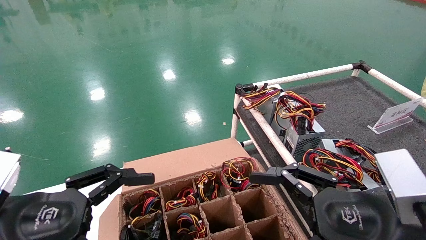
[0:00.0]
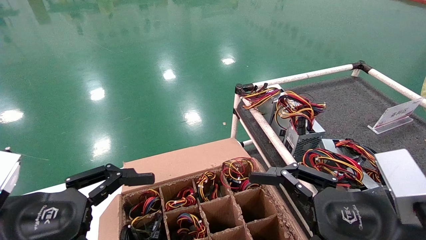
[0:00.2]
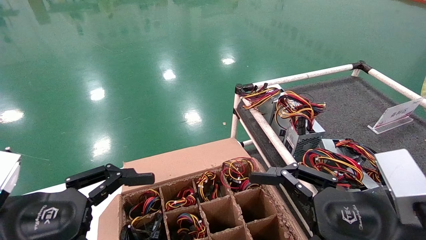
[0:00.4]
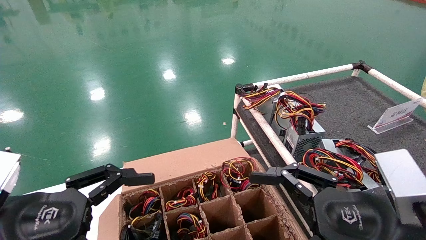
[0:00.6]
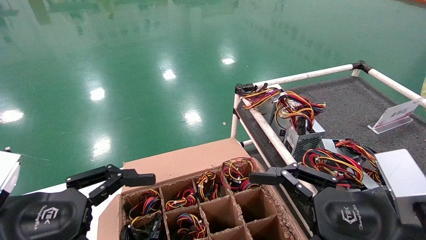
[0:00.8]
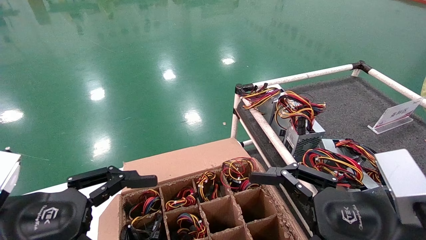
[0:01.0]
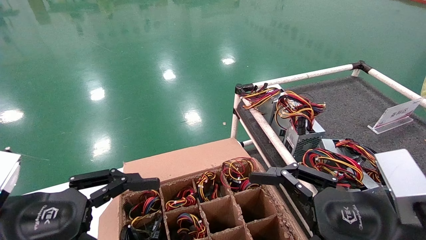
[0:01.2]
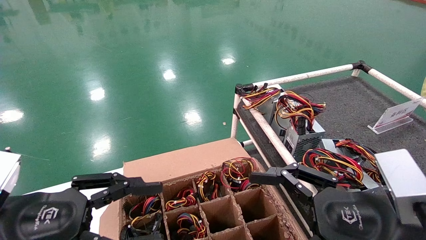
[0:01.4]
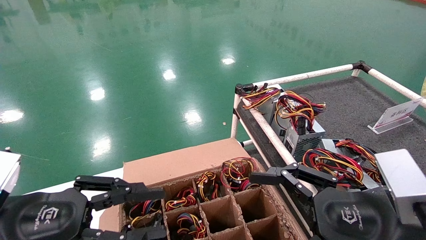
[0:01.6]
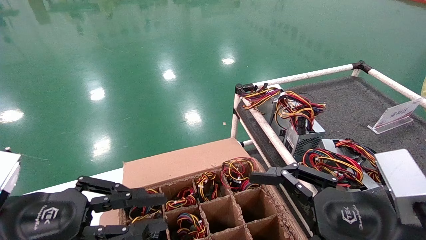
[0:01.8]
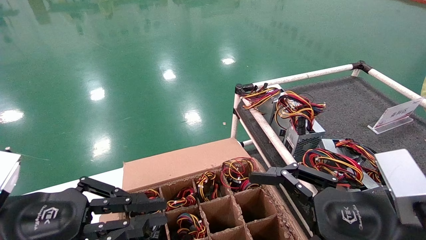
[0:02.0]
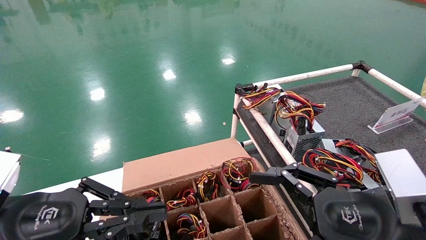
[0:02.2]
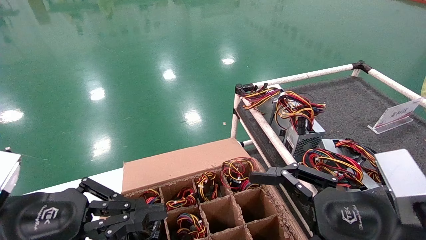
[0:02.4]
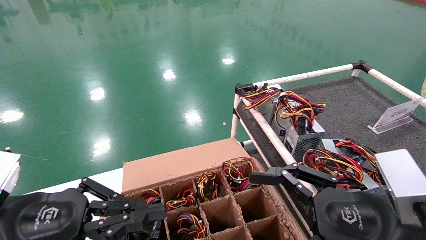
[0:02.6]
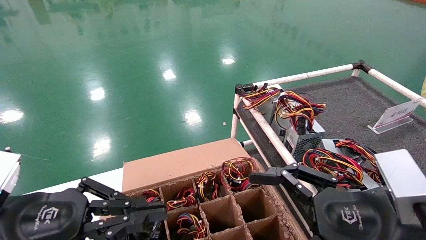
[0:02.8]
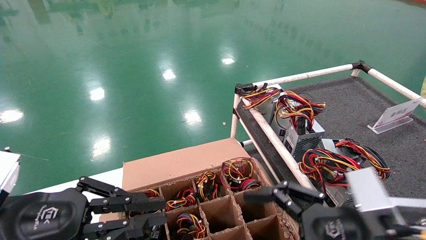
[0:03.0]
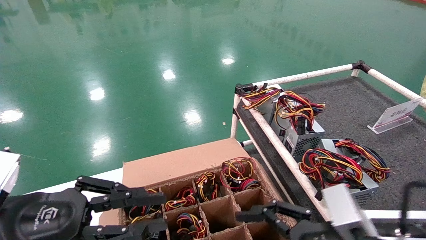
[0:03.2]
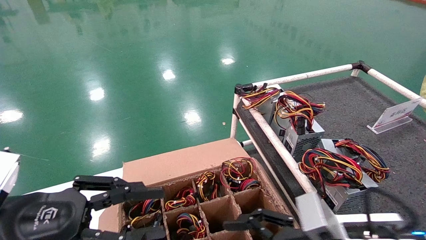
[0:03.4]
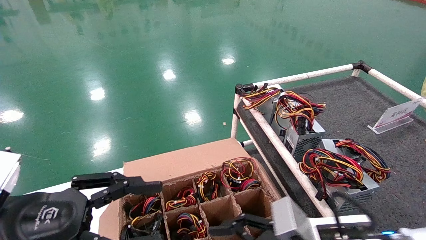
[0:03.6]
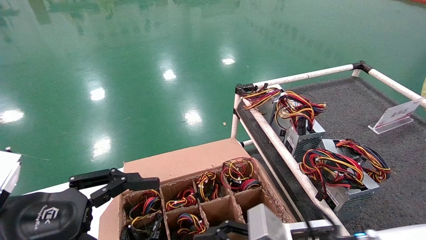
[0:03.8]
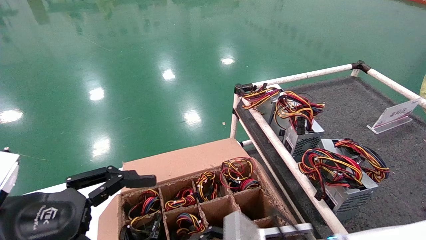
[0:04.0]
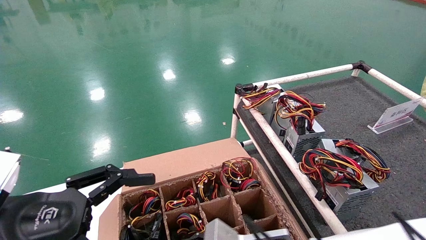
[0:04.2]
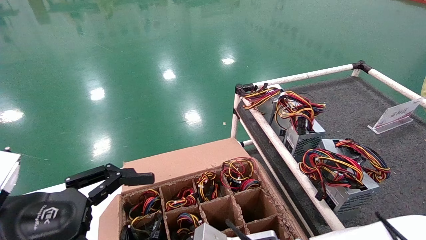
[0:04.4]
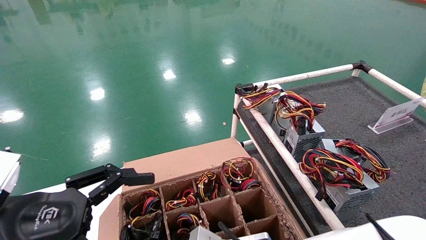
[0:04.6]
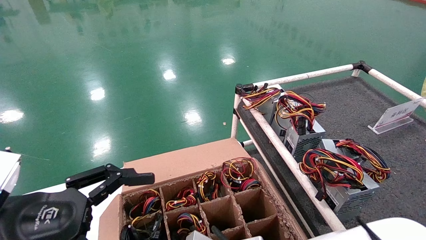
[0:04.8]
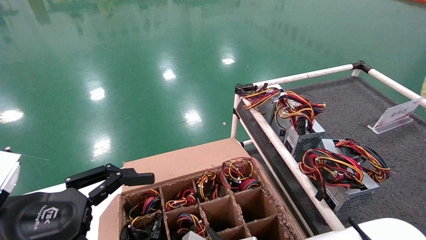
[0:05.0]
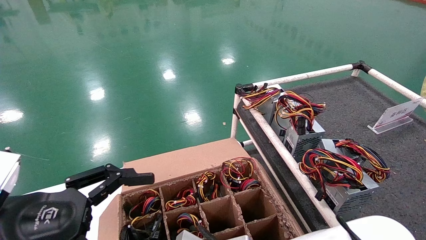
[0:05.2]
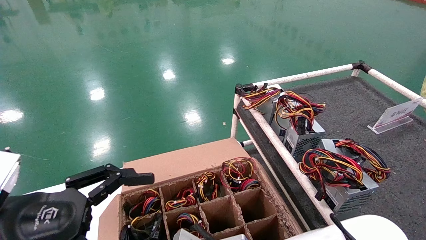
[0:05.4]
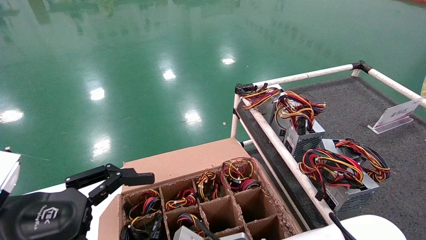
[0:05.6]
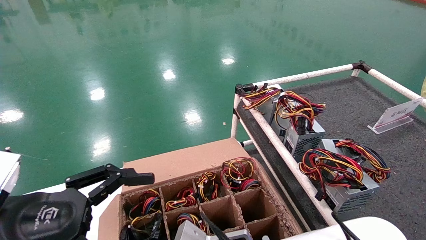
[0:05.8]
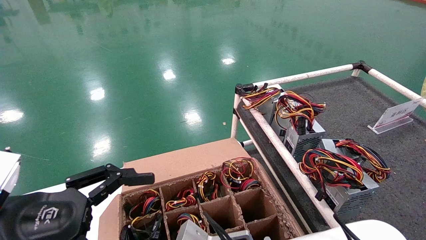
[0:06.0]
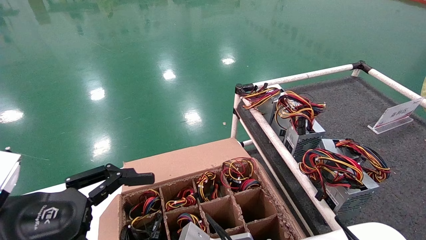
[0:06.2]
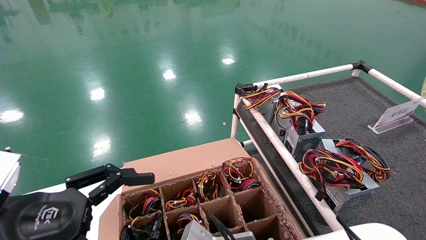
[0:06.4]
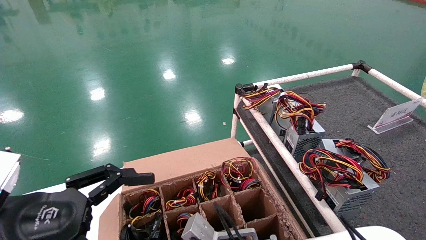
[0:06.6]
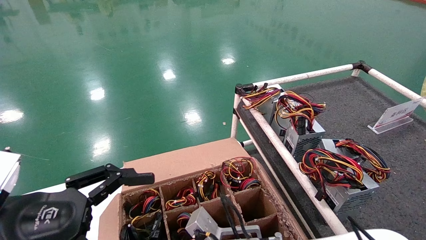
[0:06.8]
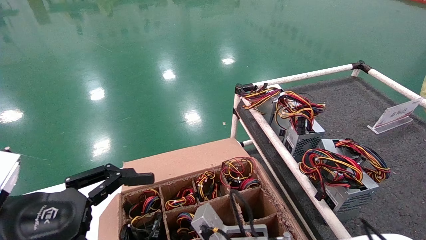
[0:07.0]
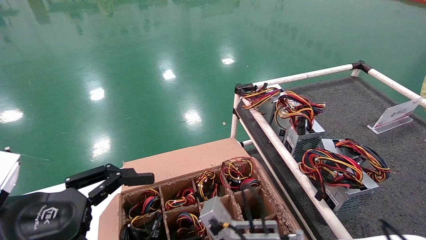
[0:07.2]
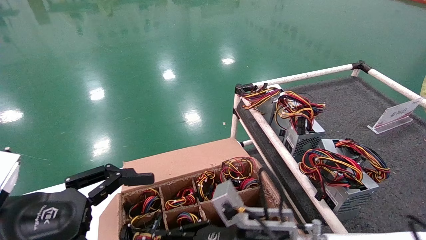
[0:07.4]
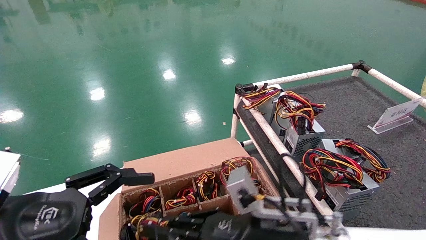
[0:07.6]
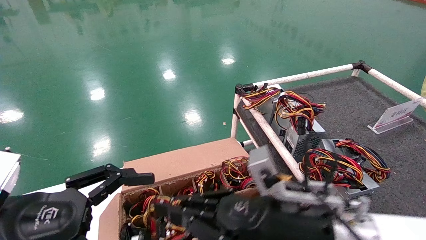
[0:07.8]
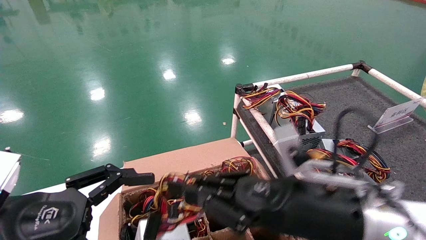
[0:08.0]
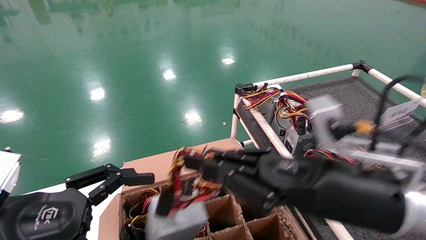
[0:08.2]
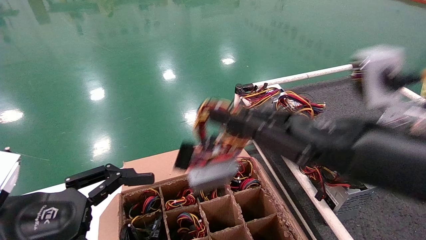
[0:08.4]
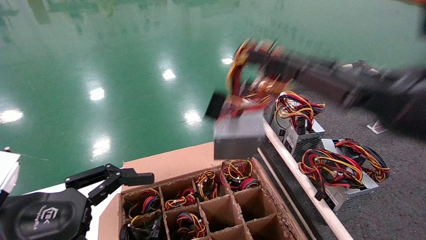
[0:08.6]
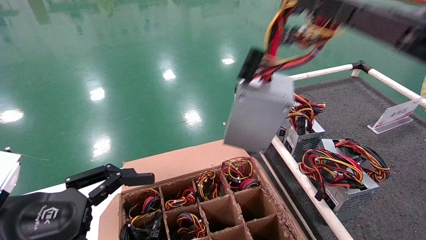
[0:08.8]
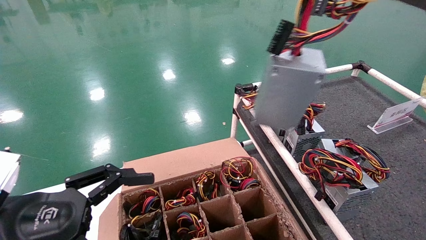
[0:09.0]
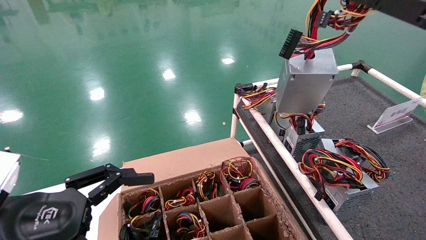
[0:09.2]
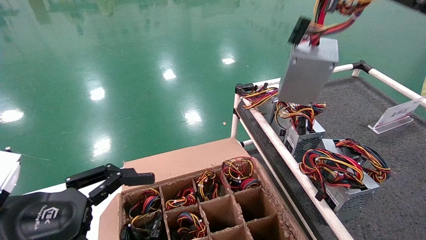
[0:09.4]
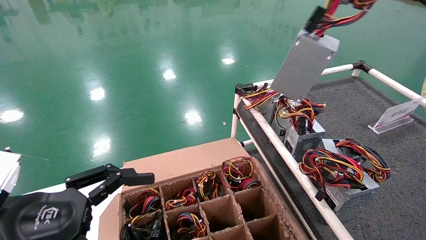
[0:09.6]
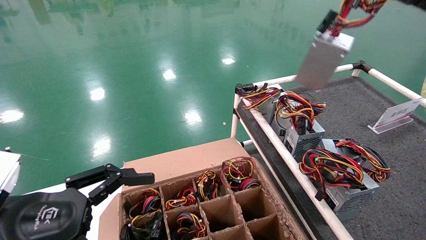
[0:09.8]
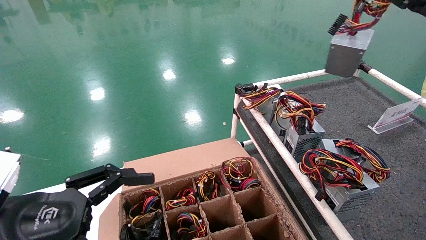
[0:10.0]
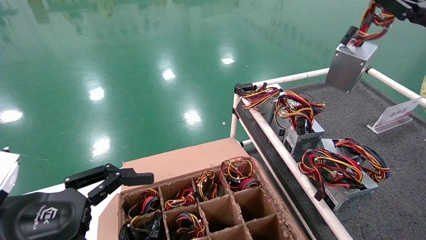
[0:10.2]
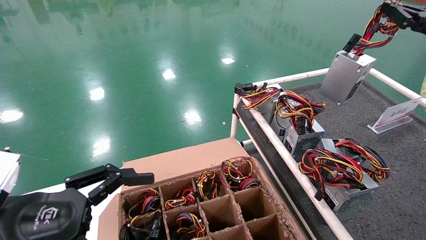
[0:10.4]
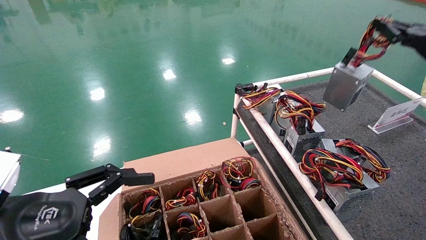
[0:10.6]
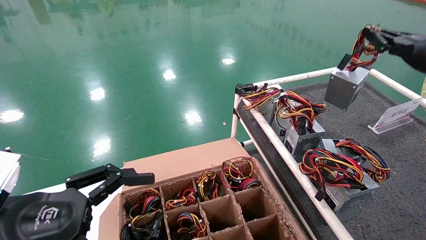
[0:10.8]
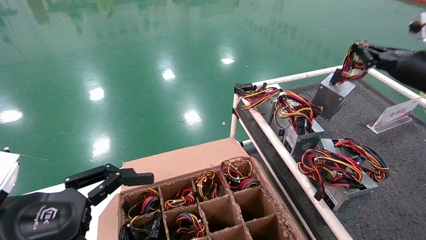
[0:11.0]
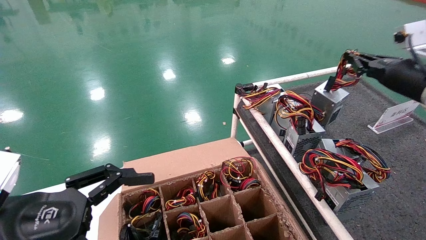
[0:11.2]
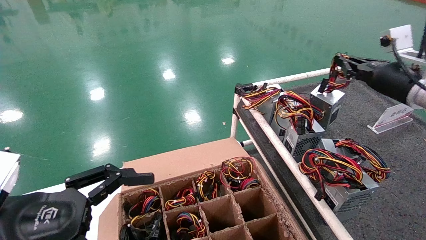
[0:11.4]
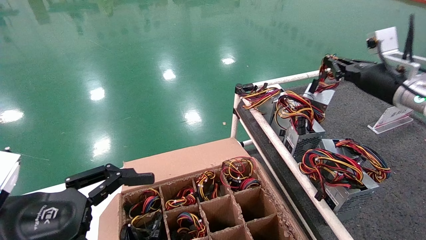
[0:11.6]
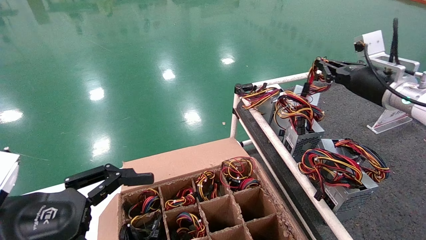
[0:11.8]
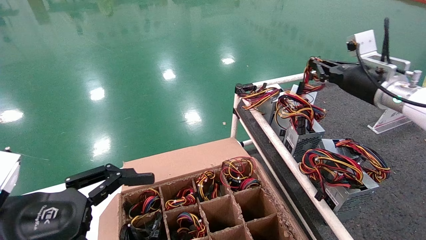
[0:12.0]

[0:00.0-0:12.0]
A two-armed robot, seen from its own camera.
Step, 0:00.8 to 0:06.2: Grab and lift the power supply from the large box.
0:00.0 to 0:01.6: The left gripper closes up.
0:01.6 to 0:03.0: The left gripper closes.
0:03.0 to 0:04.4: The left gripper opens. Meanwhile the right gripper moves to the left, downward and forward, about 20 cm.
0:04.4 to 0:06.0: The right gripper changes place by approximately 5 cm, and closes its fingers.
0:06.0 to 0:07.6: The right gripper is displaced upward and to the right by about 10 cm, and closes its fingers.
0:07.6 to 0:09.0: The right gripper heads upward and to the right, covering about 30 cm.
0:09.0 to 0:10.4: The right gripper shifts about 20 cm forward and to the right.
0:10.4 to 0:12.0: The right gripper goes approximately 15 cm to the left, forward and downward.

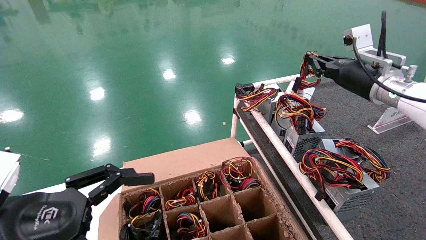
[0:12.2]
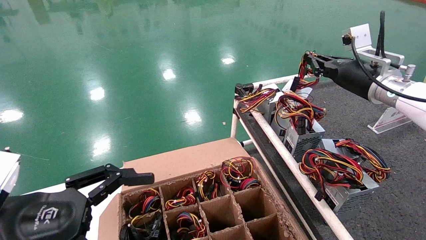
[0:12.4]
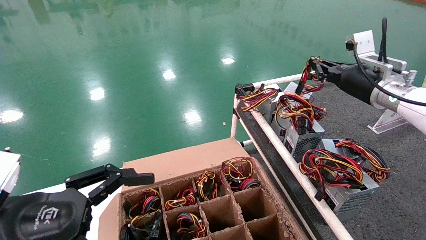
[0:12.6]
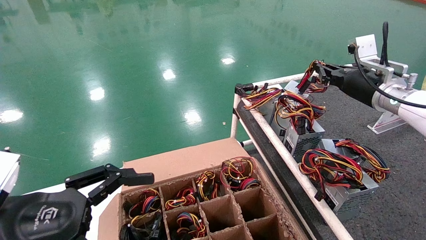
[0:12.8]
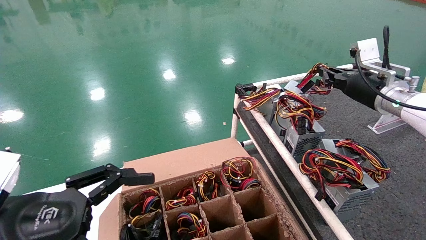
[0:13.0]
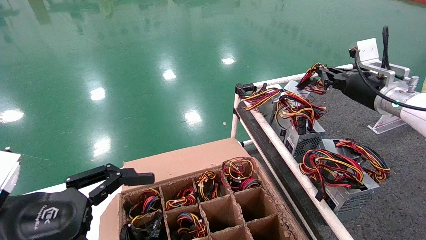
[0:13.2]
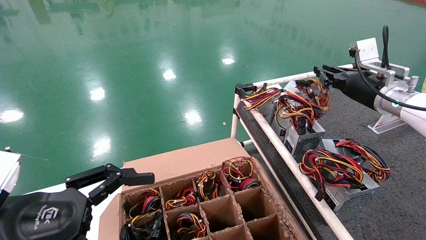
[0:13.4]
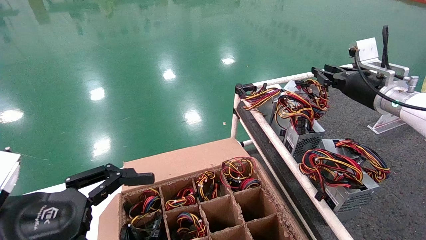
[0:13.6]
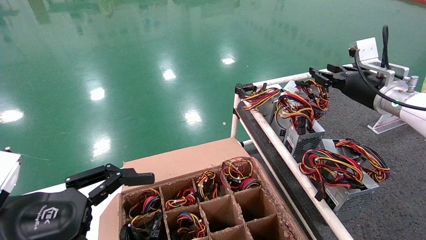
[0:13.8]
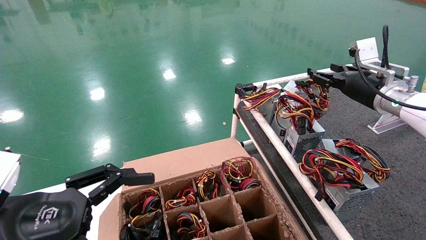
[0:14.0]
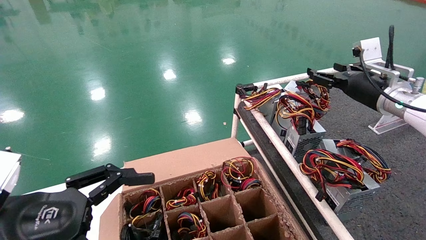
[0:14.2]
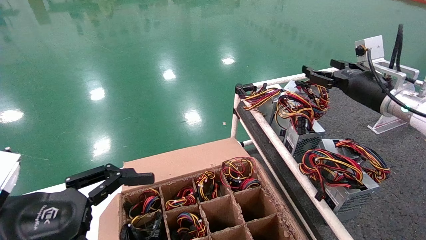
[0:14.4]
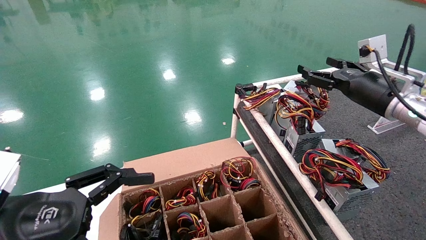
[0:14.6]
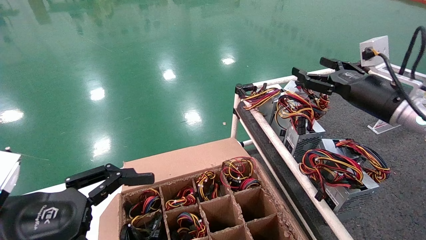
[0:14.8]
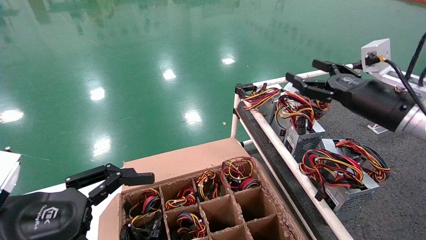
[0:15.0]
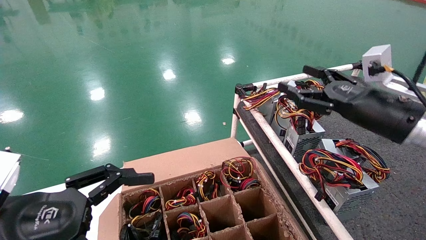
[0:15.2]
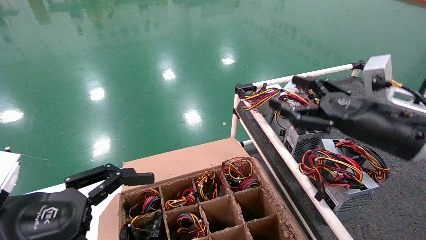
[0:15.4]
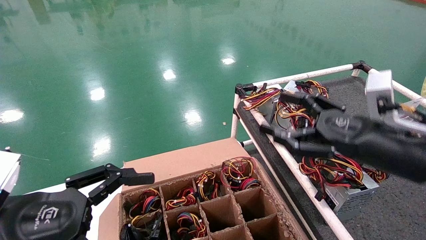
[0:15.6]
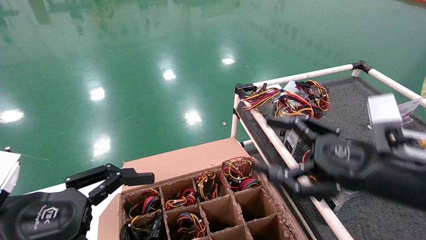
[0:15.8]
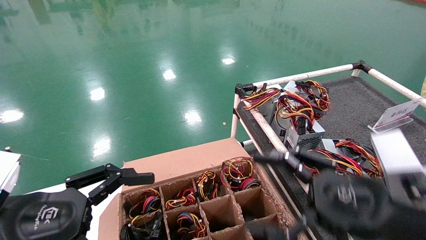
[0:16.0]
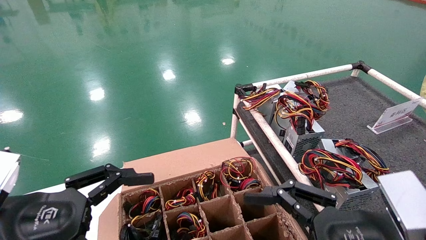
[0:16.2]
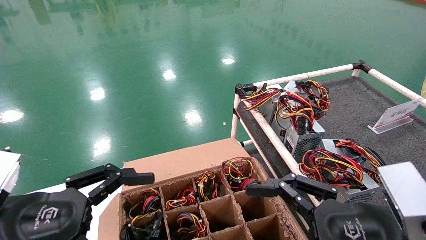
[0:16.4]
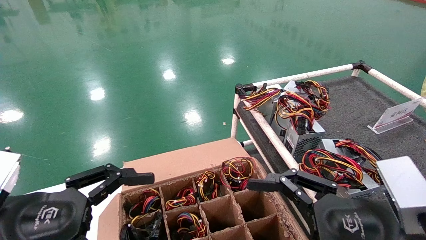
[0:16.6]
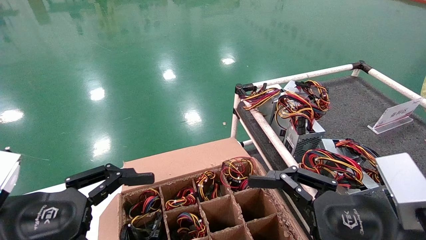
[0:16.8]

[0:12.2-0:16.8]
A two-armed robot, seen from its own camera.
0:12.2 to 0:13.8: The grippers make only small movements.
0:13.8 to 0:15.2: The right gripper heads backward, covering some 10 cm, and opens up.
0:15.2 to 0:16.8: The right gripper heads backward, downward and to the left, covering approximately 20 cm.
